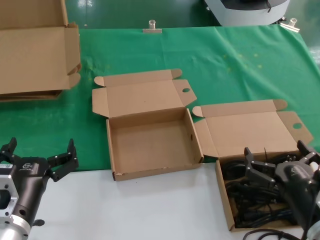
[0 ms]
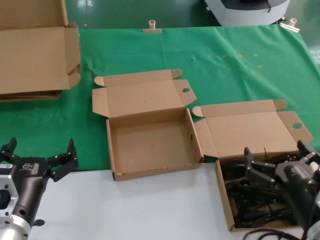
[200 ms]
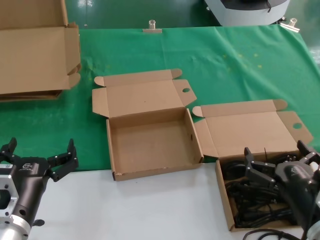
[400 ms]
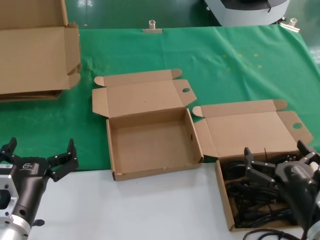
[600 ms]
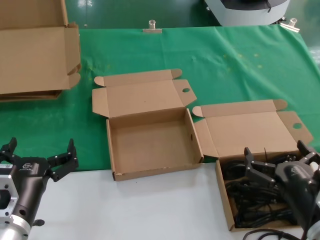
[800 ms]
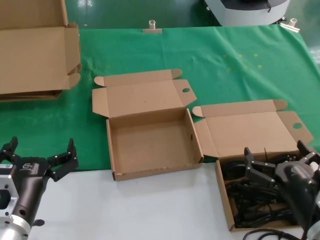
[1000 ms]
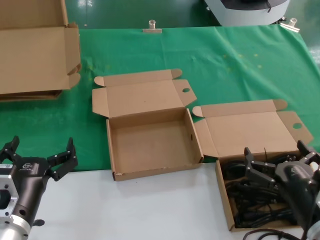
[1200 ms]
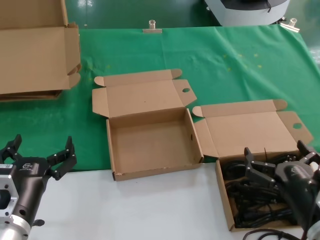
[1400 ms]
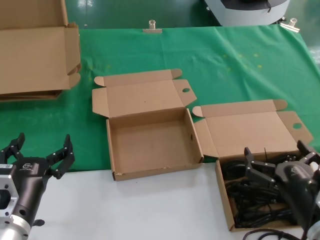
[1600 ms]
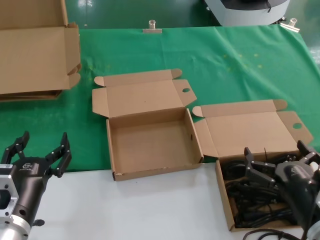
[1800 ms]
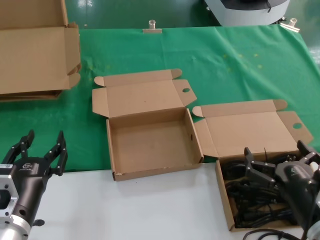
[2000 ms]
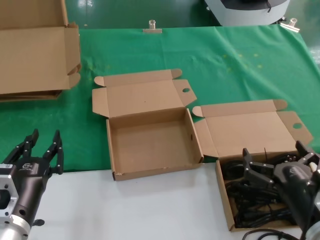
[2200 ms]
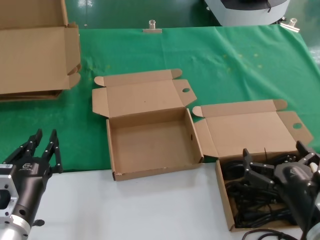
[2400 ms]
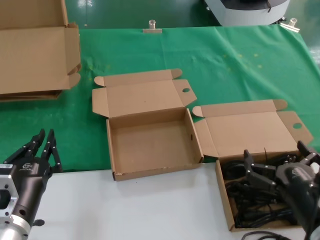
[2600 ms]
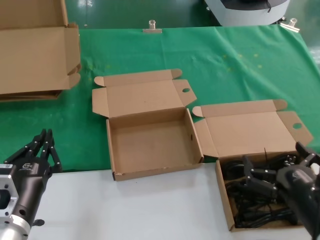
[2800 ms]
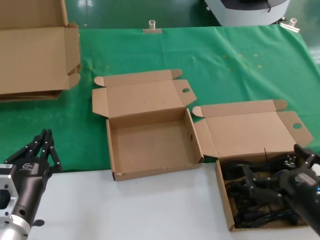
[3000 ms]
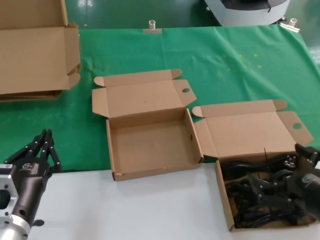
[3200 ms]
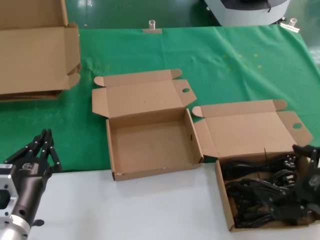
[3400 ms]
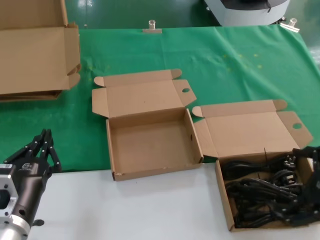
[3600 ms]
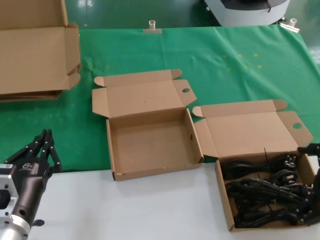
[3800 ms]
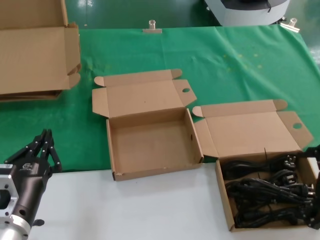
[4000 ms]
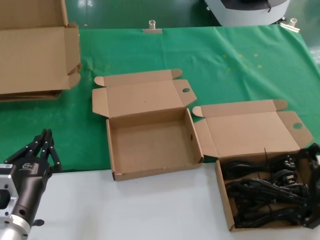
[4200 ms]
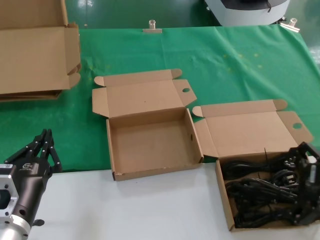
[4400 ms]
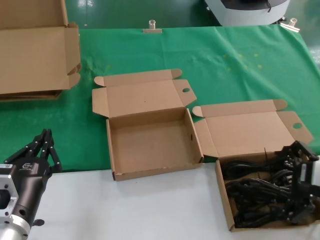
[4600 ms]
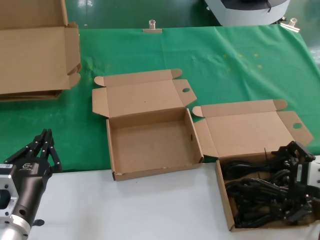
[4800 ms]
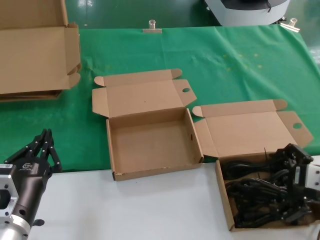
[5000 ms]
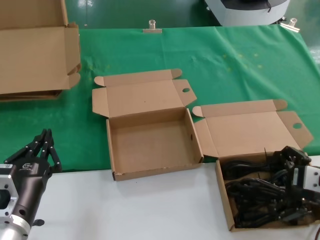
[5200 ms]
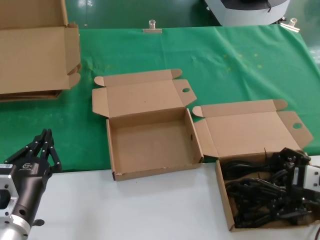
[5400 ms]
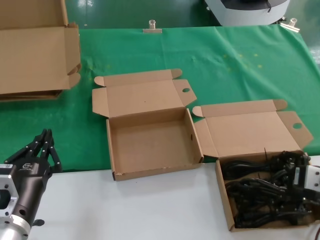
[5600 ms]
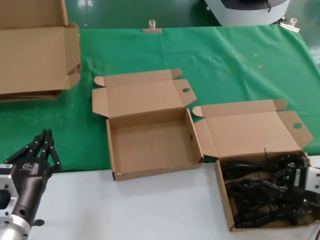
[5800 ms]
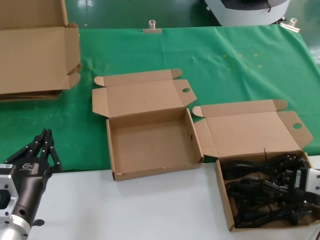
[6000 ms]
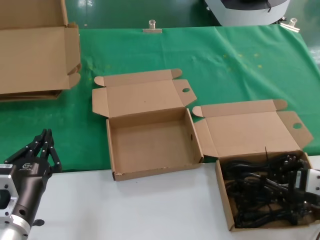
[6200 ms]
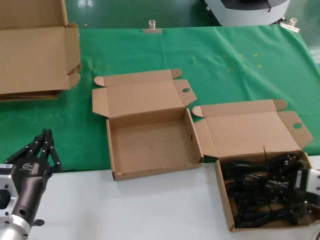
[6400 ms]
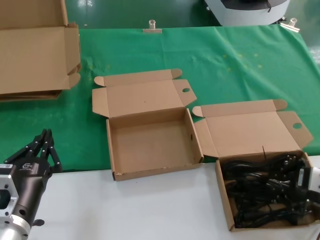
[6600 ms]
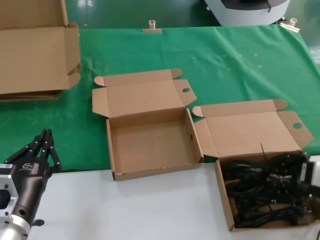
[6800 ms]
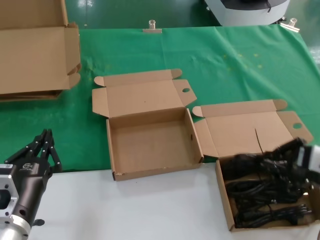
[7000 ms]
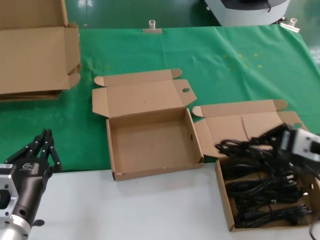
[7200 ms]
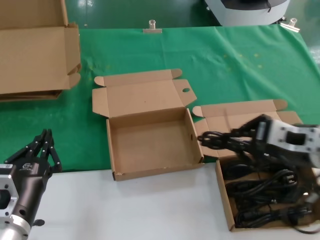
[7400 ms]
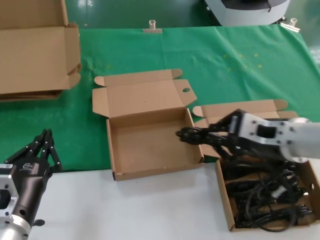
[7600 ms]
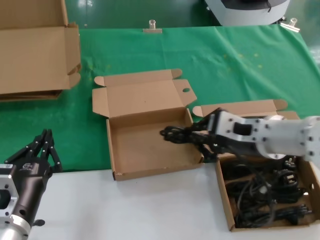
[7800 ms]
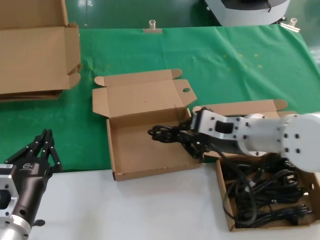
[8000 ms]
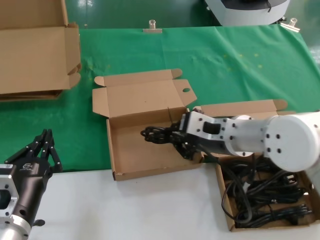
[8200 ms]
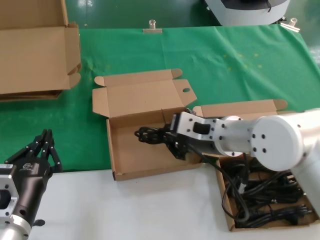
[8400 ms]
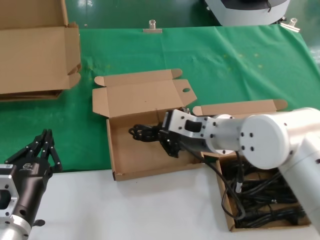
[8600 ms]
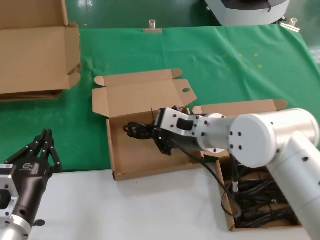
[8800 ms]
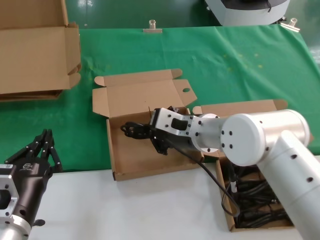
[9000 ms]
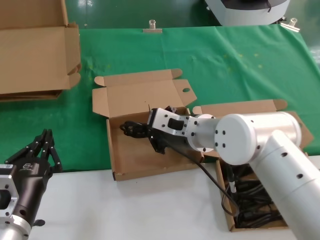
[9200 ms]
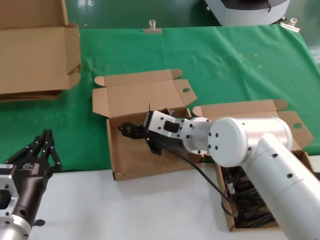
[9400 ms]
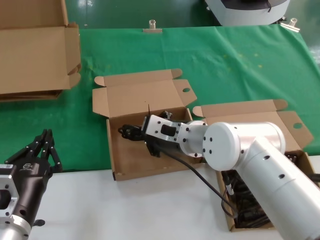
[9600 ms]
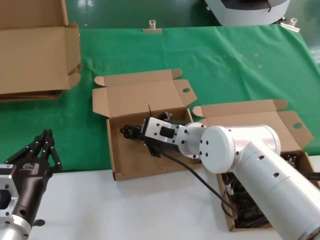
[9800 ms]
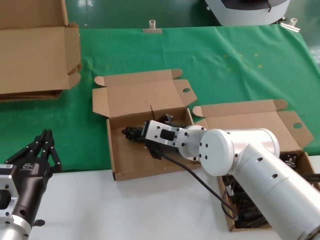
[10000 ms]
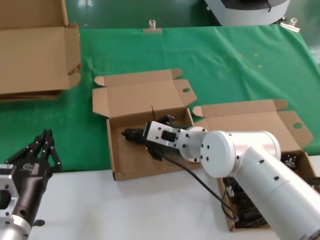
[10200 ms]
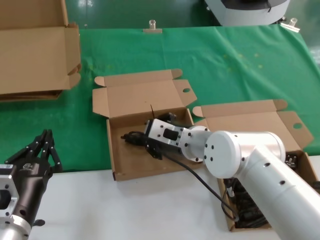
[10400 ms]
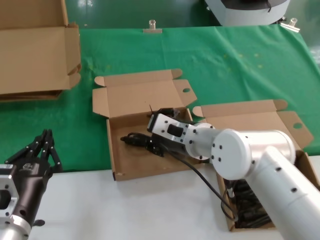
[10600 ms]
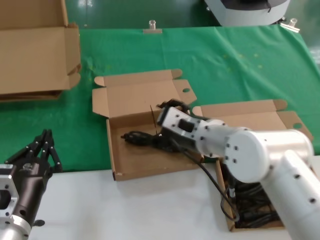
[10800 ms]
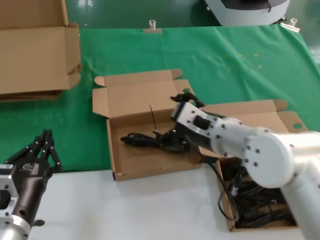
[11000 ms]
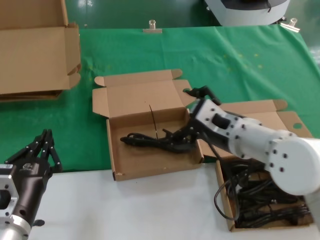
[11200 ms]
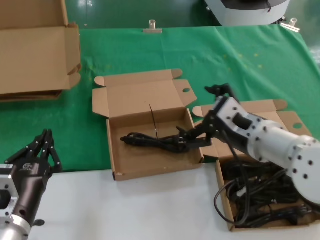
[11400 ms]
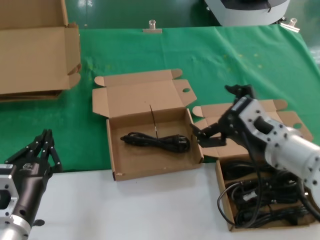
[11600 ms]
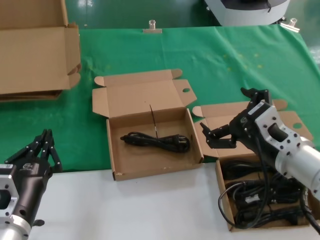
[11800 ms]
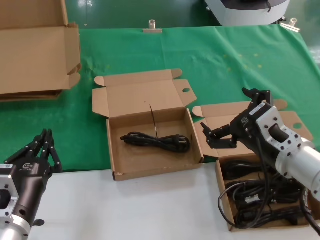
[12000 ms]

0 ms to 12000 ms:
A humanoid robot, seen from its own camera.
Task of the whole recording: take the parts from the box containing them and put them into an empty box.
Step, 0 ms to 6200 ms: Grasp the data cable.
Step, 6400 ms to 10600 ms: Place the data cable in the another box.
0 ms to 1600 ms: Neither hand changes place.
1600 ms to 3000 ms: There are only small adjustments of the hands.
3000 ms to 4400 ms: The right hand is displaced upward, forward and to the right by about 15 cm.
4400 ms to 6000 ms: The hands move only a little.
6000 ms to 7600 ms: The right hand is displaced to the left and upward by roughly 15 cm.
7600 ms to 9000 ms: The right hand heads to the left and forward, covering about 15 cm.
9000 ms to 10400 ms: The right hand moves downward, some 5 cm.
10400 ms to 12000 ms: The right hand travels to the right and backward by about 20 cm.

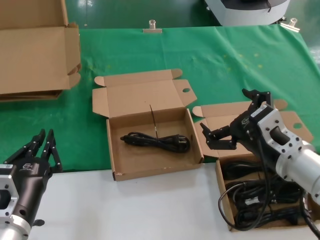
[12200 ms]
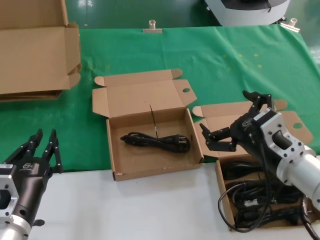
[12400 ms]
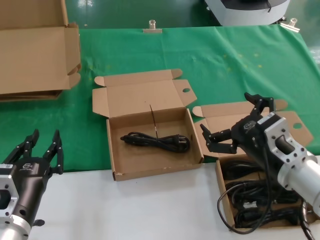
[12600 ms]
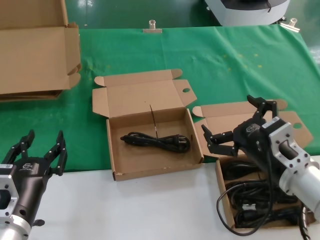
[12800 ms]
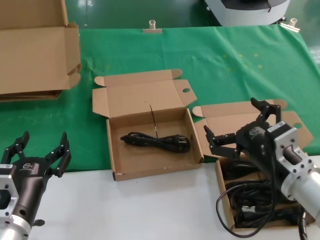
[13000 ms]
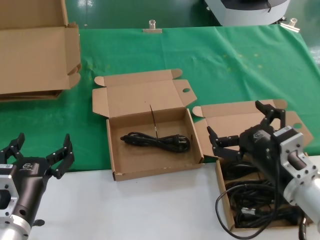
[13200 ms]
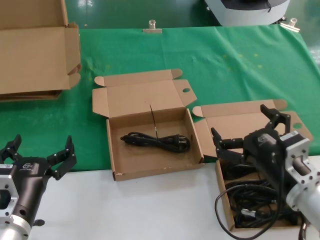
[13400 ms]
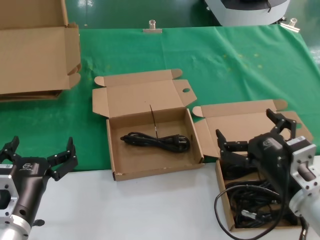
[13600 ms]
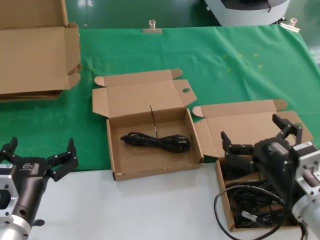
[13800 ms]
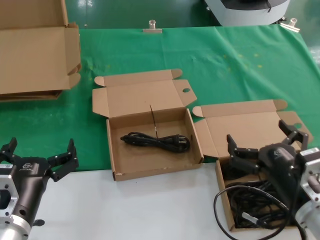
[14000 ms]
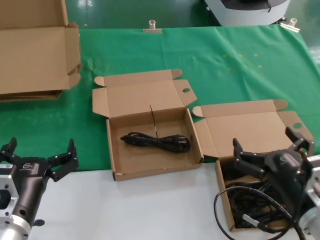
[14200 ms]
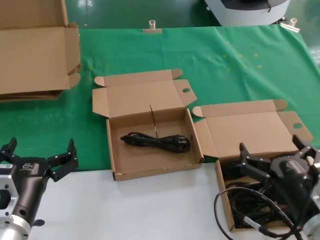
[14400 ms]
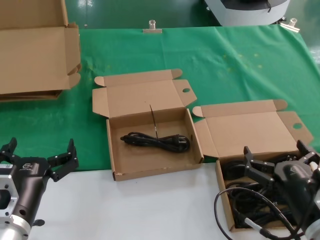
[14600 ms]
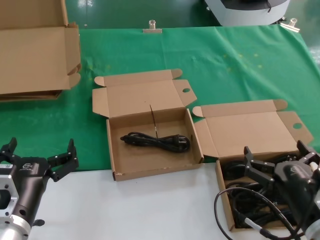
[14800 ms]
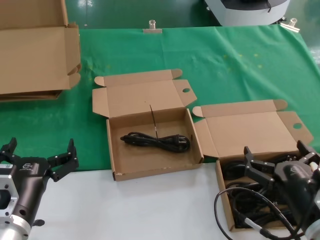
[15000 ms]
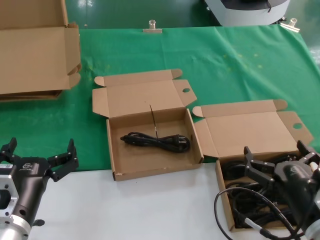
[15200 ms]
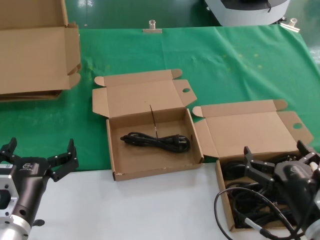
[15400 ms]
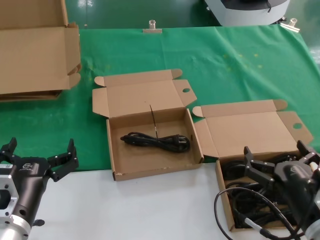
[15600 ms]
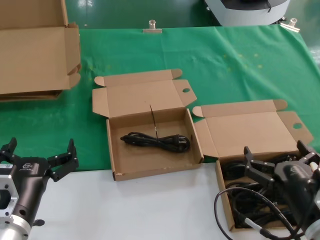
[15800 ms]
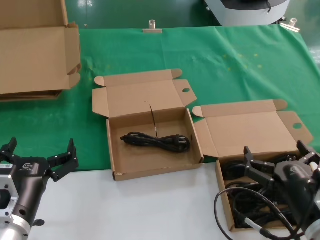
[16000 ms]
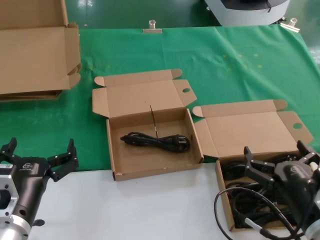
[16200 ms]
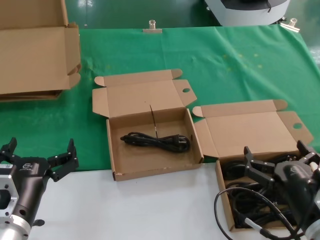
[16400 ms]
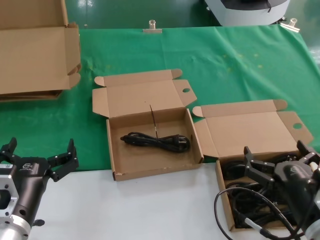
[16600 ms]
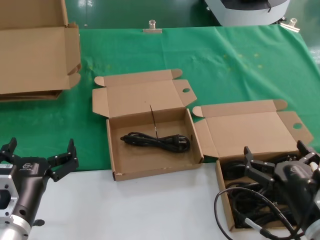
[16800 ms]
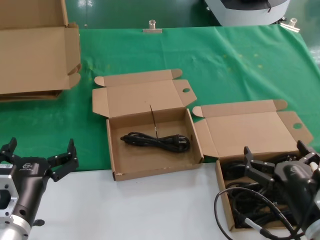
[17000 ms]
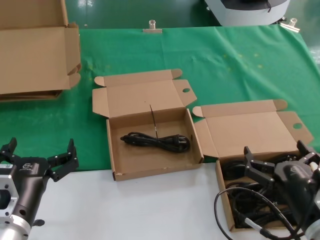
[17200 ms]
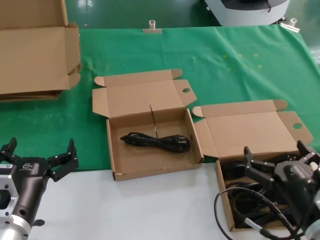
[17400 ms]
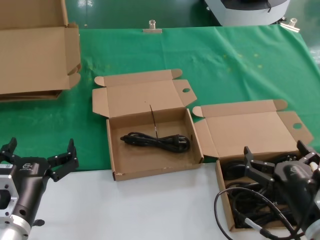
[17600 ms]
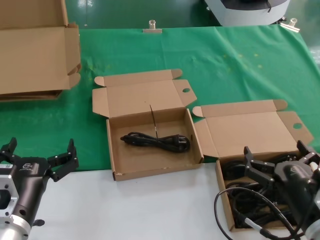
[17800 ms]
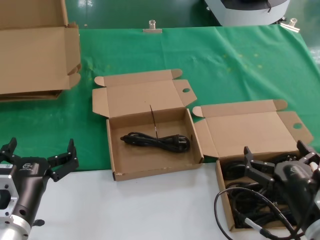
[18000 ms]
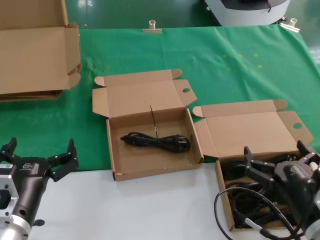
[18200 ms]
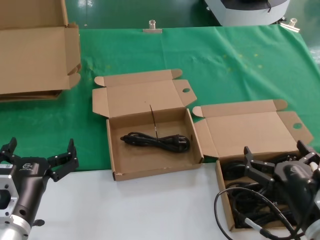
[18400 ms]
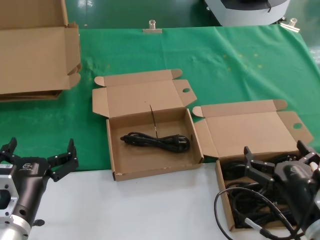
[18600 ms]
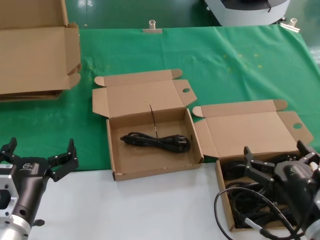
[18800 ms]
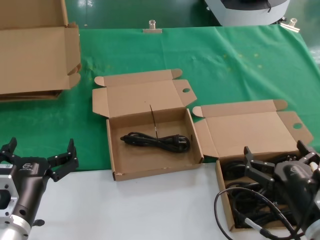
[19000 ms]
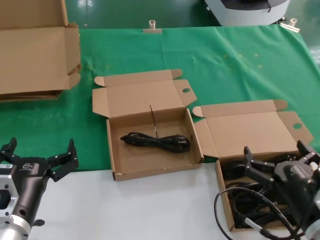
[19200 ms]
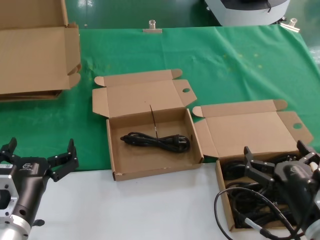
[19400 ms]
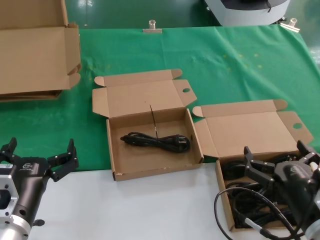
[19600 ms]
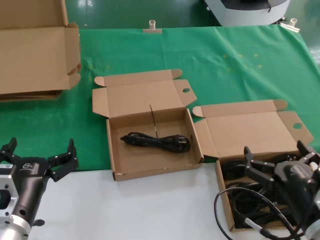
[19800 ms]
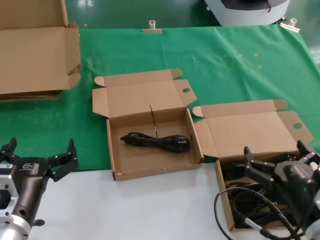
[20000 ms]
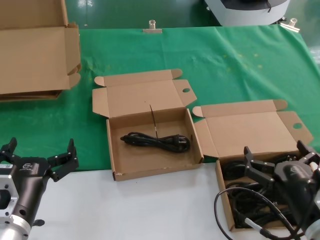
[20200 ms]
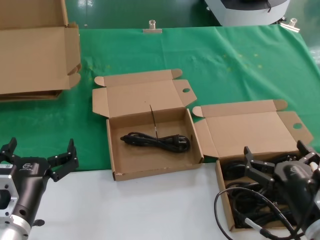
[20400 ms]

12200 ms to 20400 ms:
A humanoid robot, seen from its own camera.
Task of the whole recording: take the parts from the box containing them and put them into an empty box.
12200 ms to 13800 ms: The right hand is displaced downward and backward by roughly 10 cm.
13800 ms to 15400 ms: The hands stay close to where they were, moving slightly.
15400 ms to 20400 ms: Both hands stay about where they are.

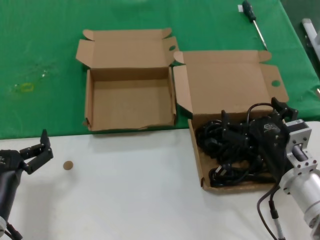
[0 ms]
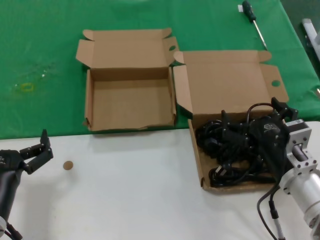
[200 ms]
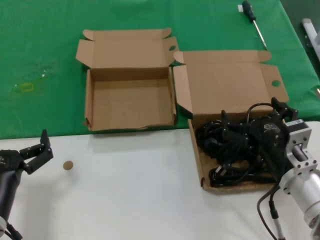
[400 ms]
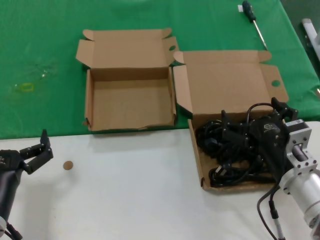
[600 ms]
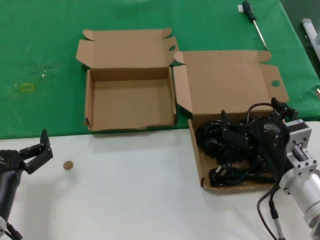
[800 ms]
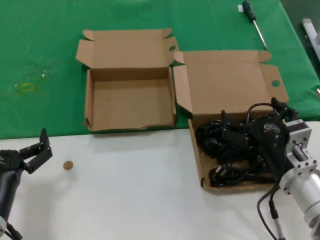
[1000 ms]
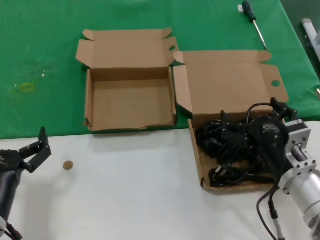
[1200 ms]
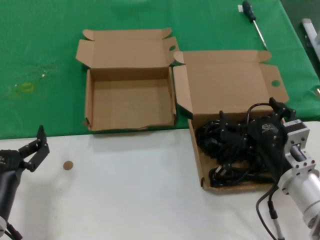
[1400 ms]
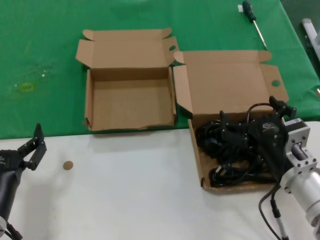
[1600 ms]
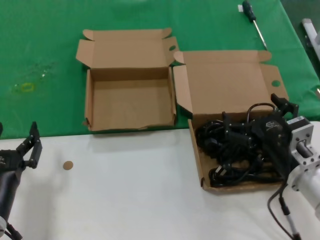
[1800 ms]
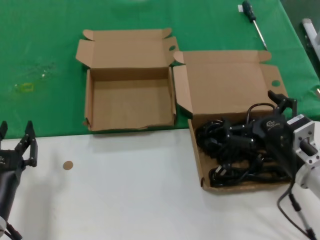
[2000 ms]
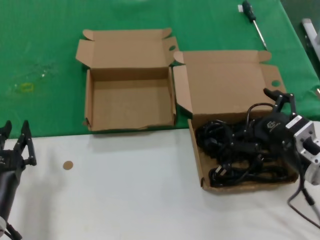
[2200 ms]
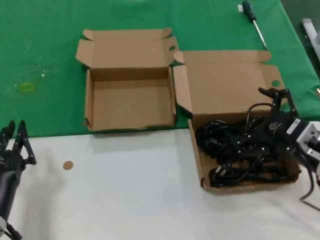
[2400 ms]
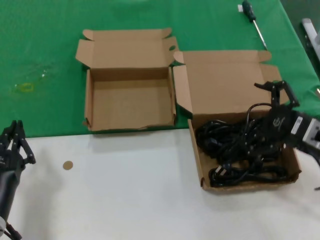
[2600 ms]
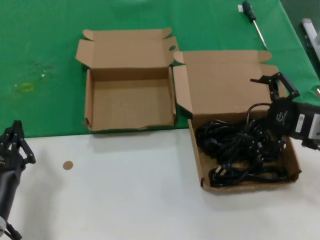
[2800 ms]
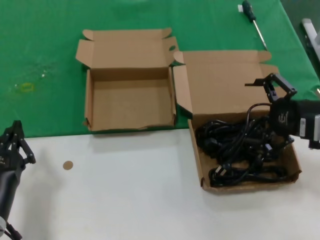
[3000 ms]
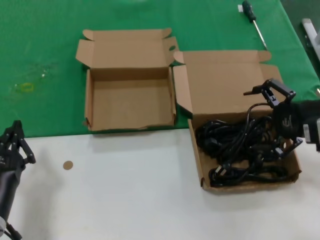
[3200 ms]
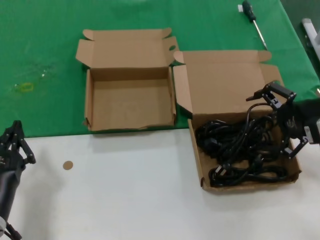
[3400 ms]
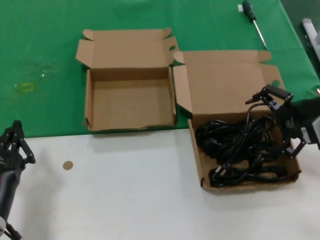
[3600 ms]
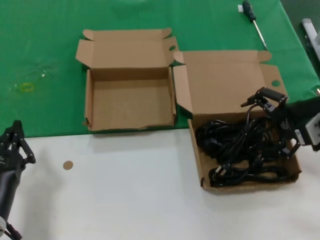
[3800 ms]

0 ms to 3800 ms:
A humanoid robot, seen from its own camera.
Task of the whole recording: take the parts from the box containing them and put them into an empty box.
0 ms to 1200 ms: Neither hand changes place.
1200 ms to 2600 ms: The right hand moves to the right and upward, approximately 10 cm.
2600 ms to 3800 ms: The right hand heads upward and forward, covering about 10 cm.
